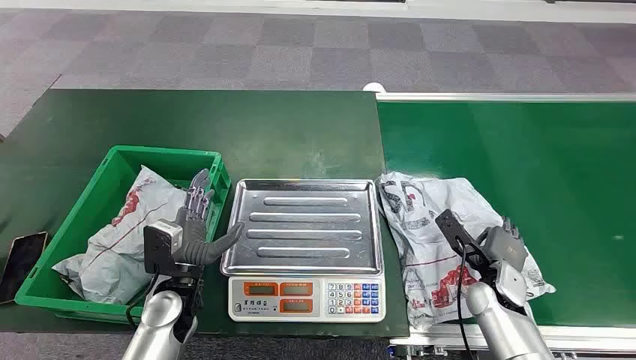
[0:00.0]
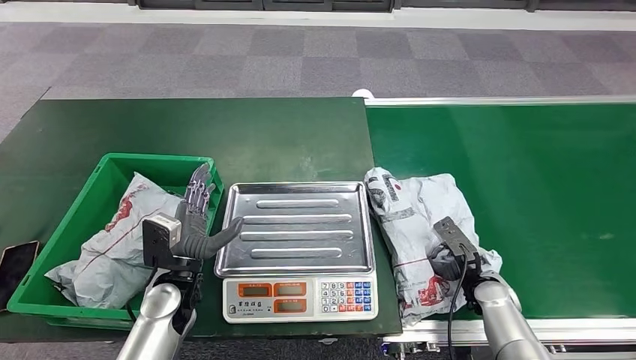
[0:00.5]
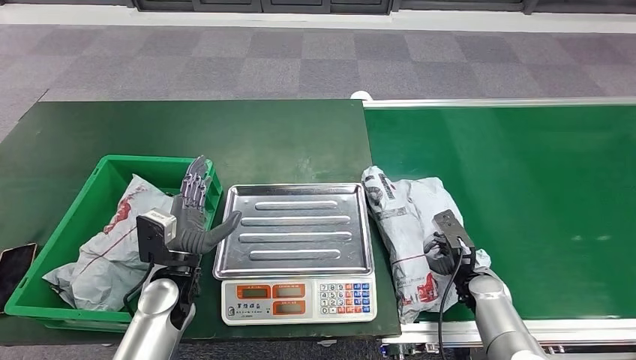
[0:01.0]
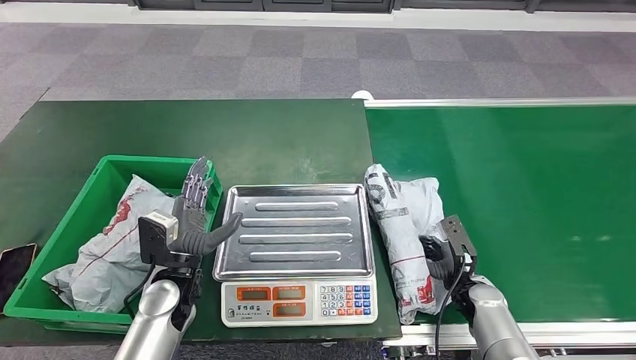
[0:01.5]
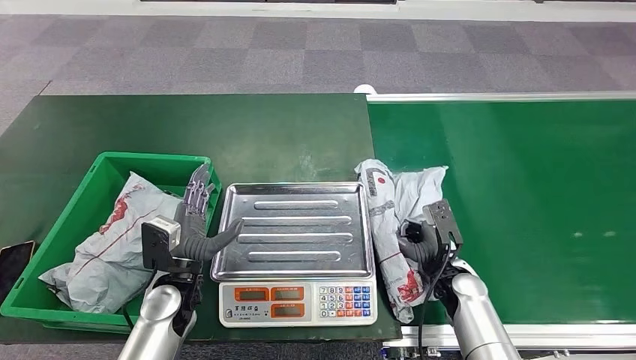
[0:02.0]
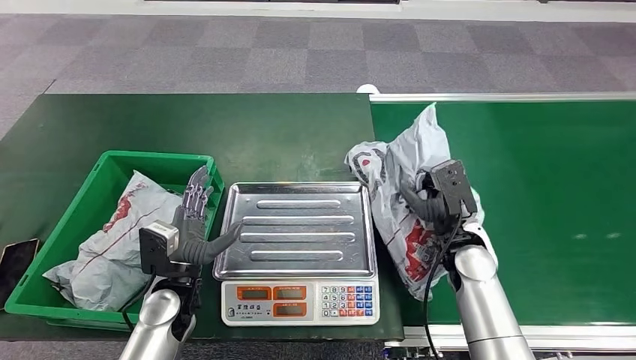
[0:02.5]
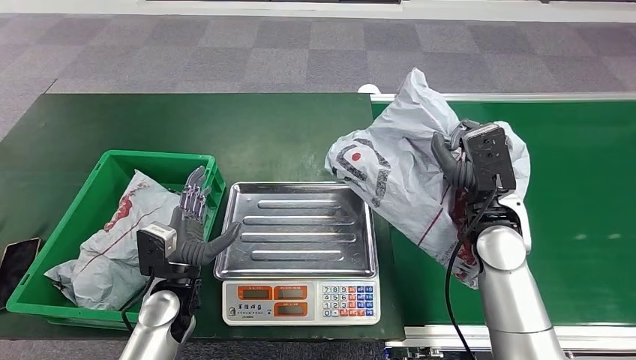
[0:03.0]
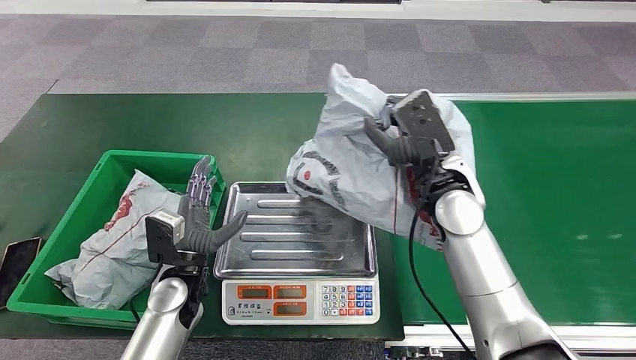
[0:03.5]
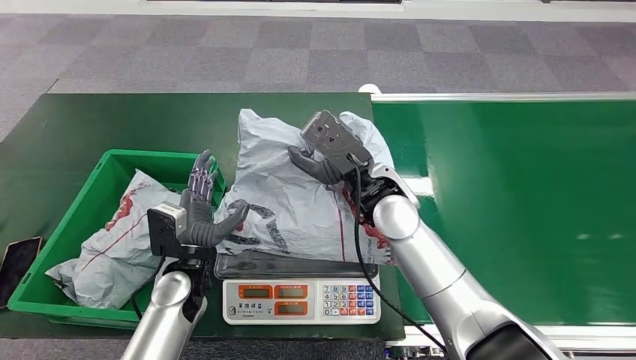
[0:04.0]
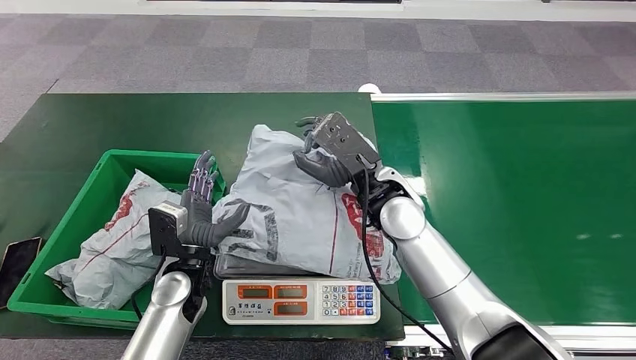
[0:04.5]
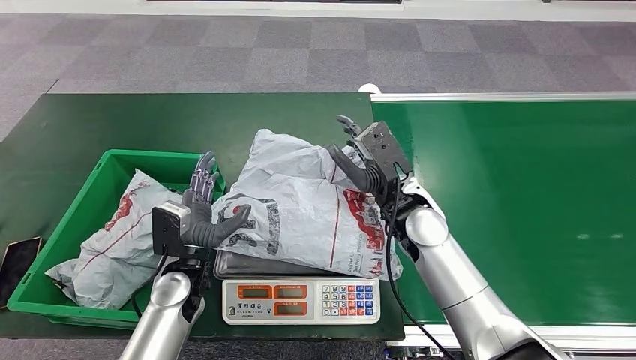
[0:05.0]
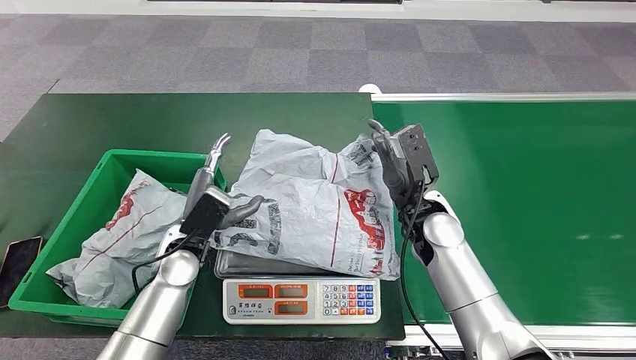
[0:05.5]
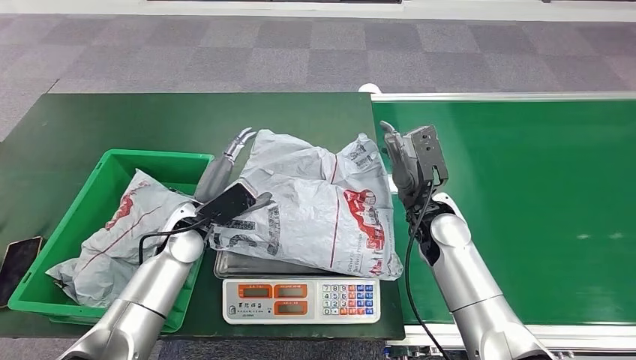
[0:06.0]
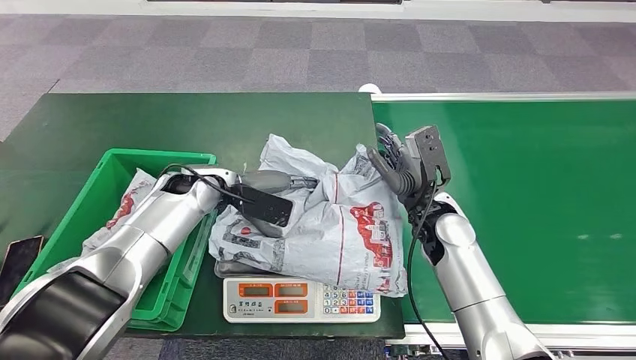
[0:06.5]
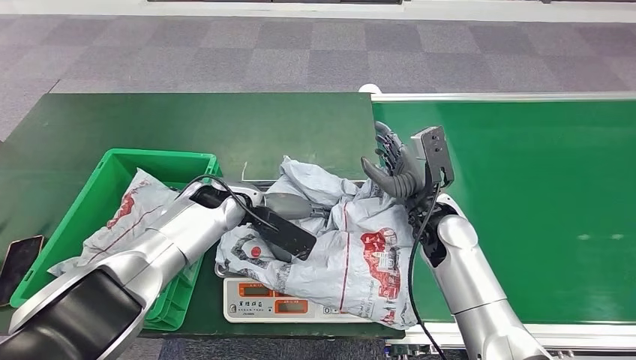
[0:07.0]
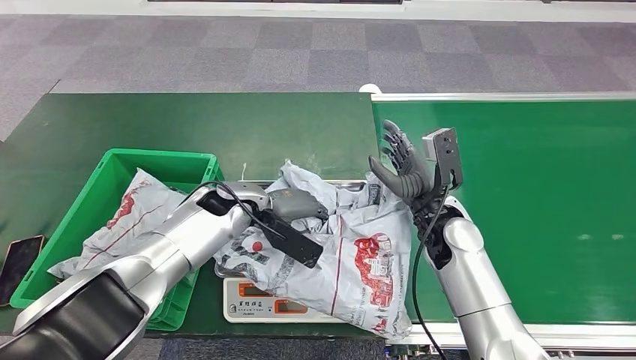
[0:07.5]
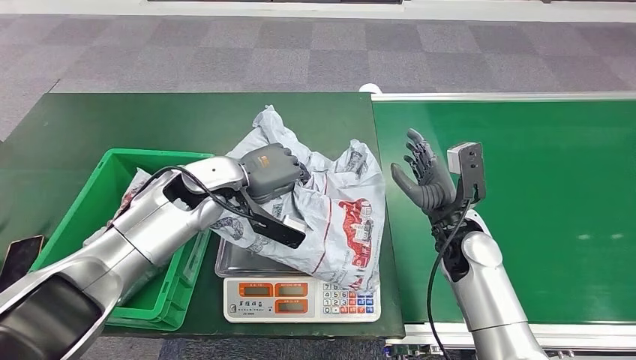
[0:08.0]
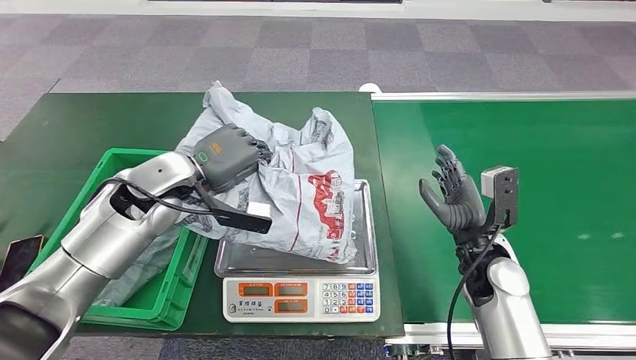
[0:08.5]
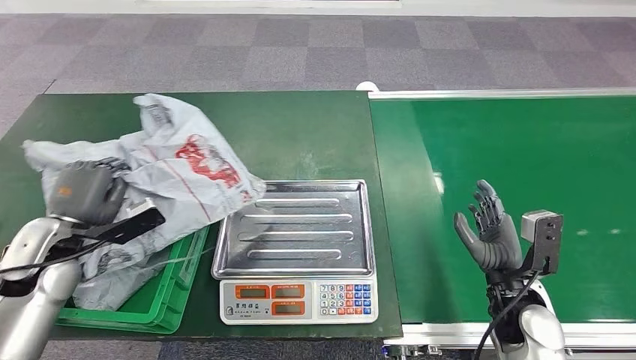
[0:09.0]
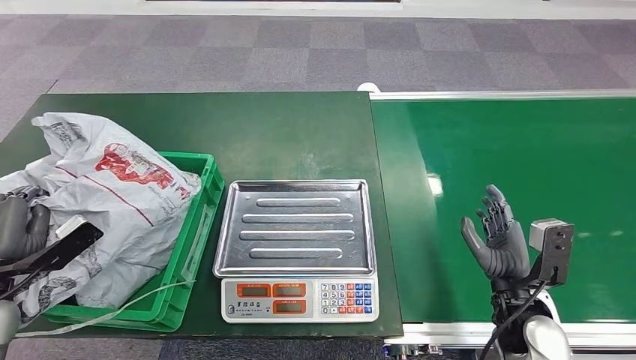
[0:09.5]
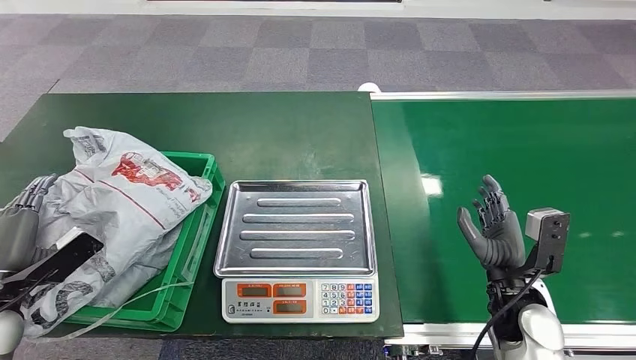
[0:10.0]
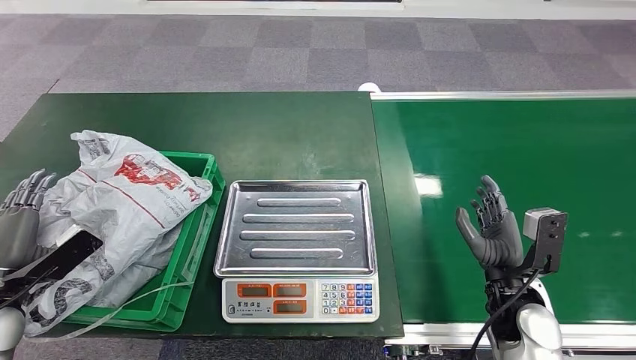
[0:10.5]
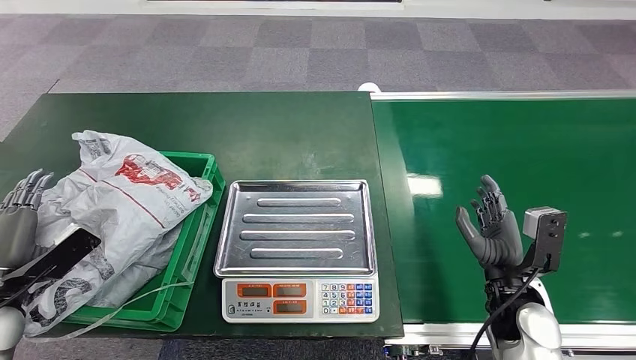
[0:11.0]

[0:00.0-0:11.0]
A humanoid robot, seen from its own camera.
Step, 0:00.0 to 0:02.5: Pick up the package from the conveyor belt.
Step, 0:03.0 to 0:05.0: Place the package onto the inbound machine.
Step, 0:05.5 to 0:08.0: Pick up the package from the inbound machine.
Step, 0:08.5 to 0:11.0: Place the package into the parcel locker.

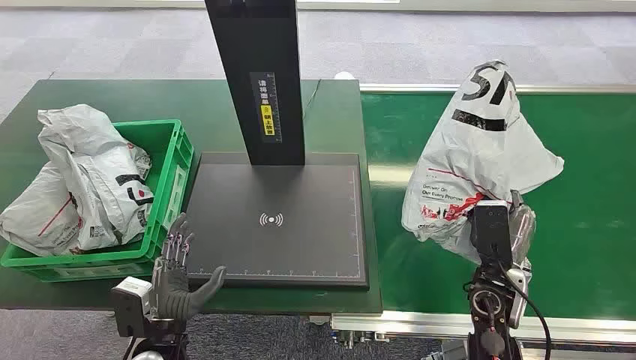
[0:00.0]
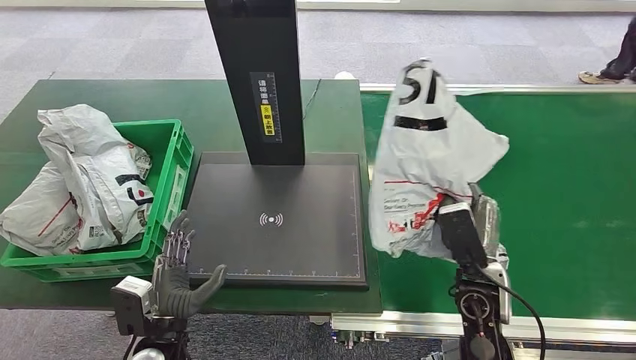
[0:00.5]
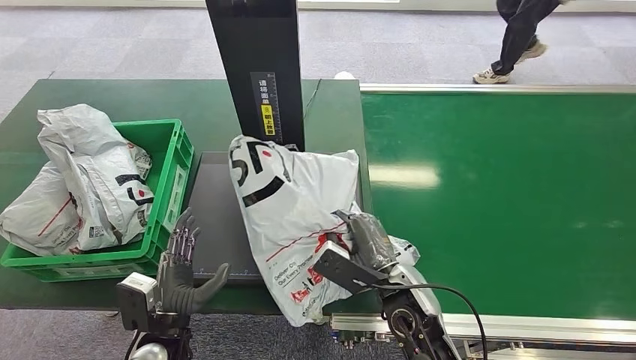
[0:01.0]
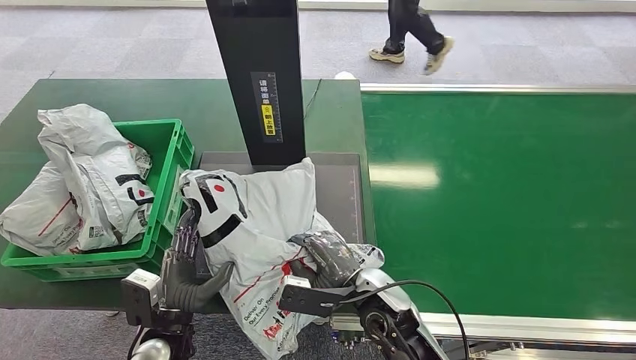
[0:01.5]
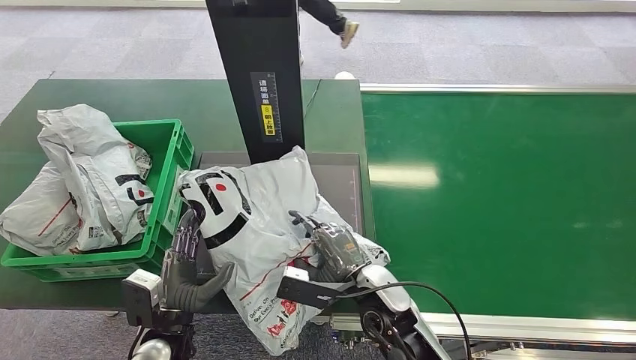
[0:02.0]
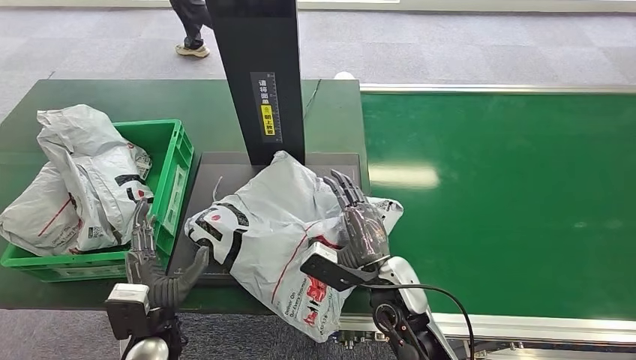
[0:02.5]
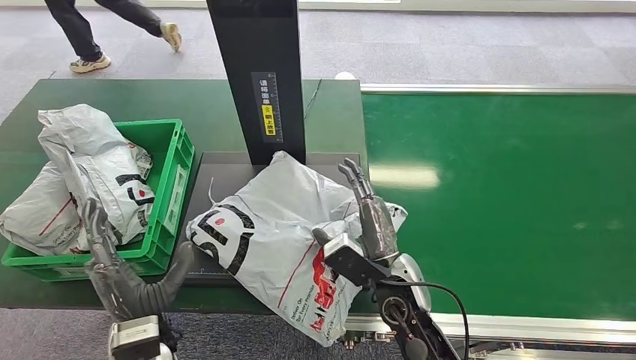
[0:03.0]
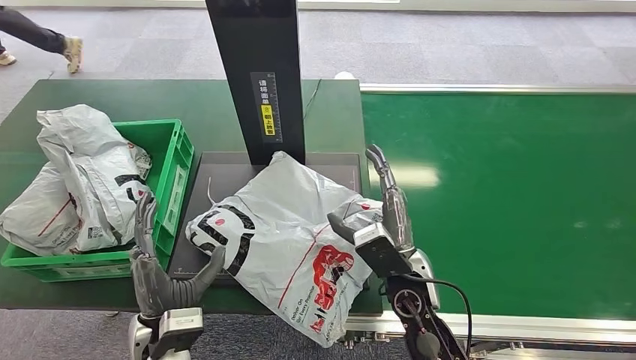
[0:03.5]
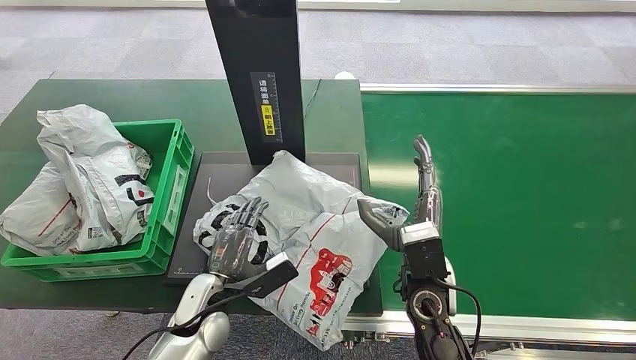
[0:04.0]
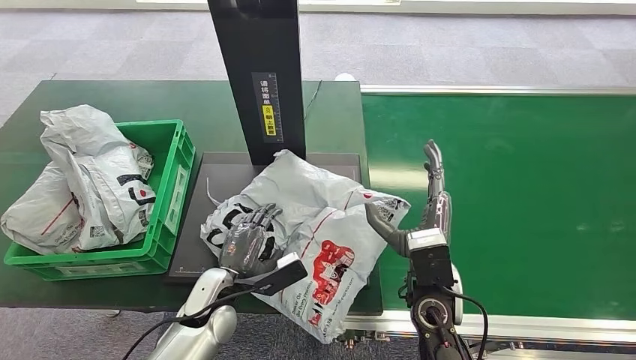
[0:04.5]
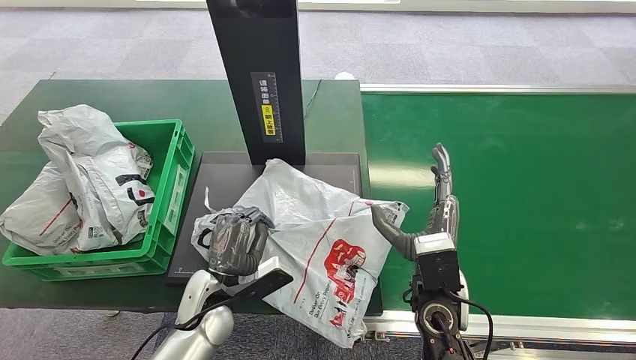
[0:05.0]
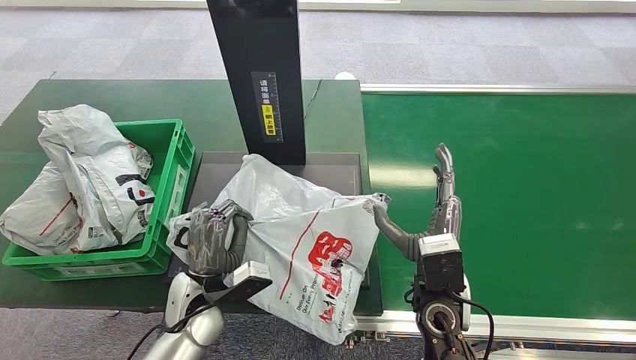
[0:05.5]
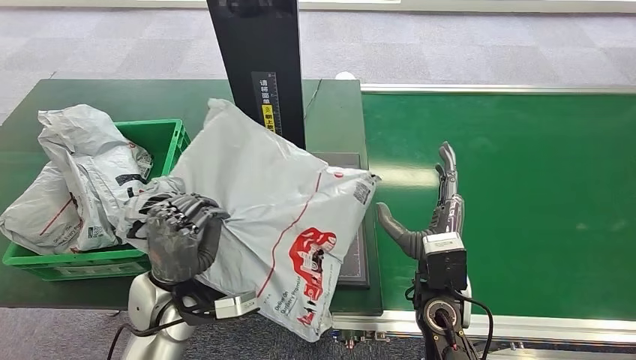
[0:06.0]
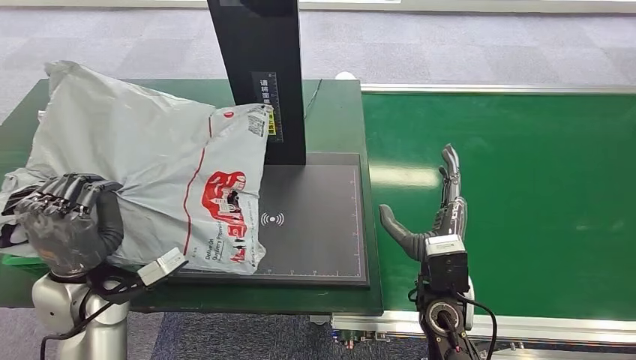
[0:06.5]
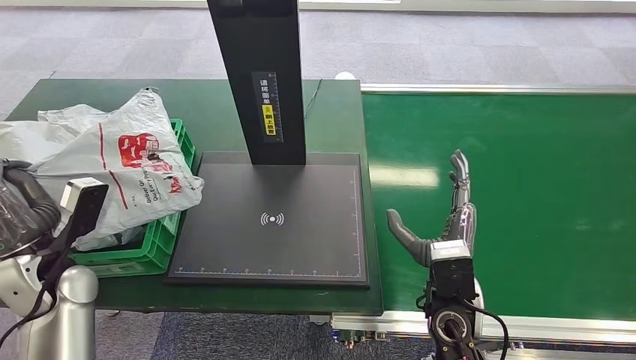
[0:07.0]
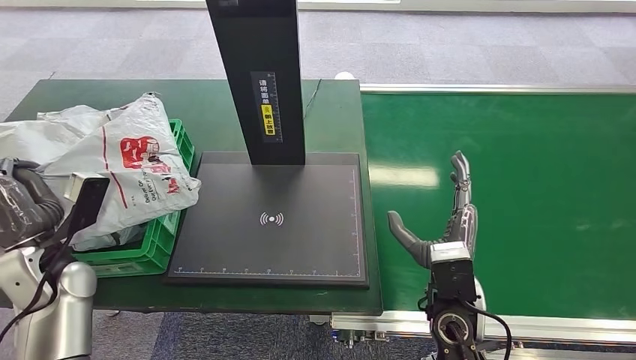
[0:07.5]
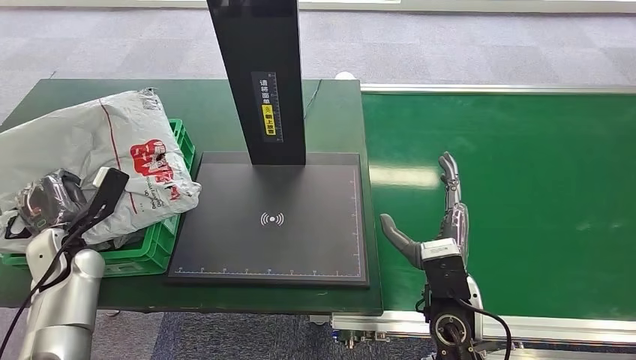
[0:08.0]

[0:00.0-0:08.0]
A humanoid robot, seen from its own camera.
0:02.0 to 0:04.0: The right hand shifts roughly 5 cm upward and to the right, while the left hand goes some 5 cm forward.
